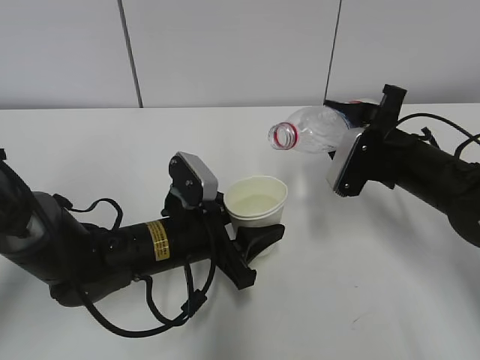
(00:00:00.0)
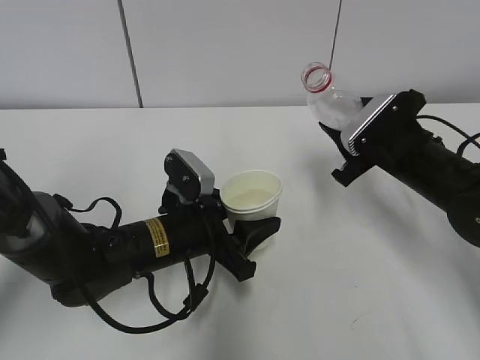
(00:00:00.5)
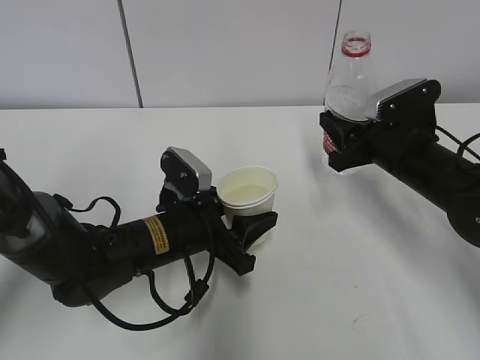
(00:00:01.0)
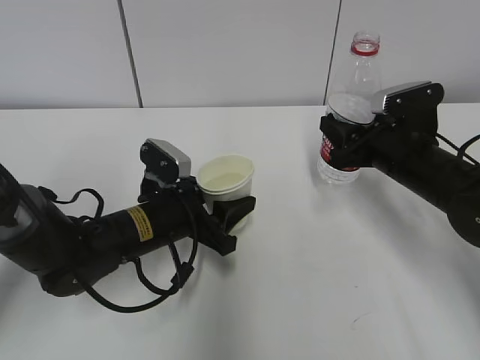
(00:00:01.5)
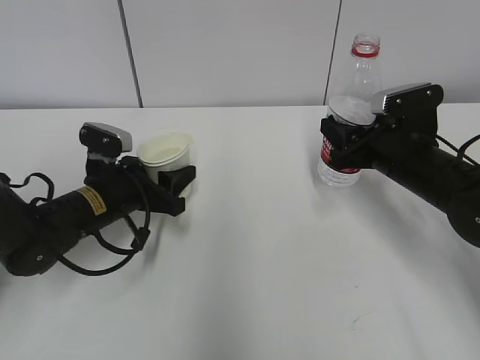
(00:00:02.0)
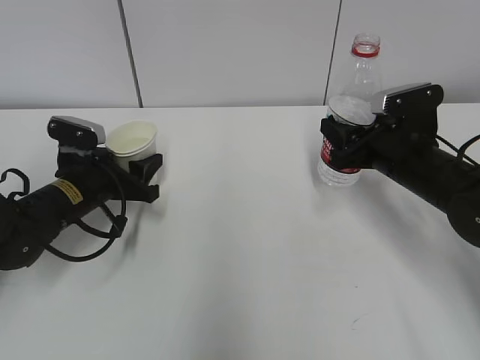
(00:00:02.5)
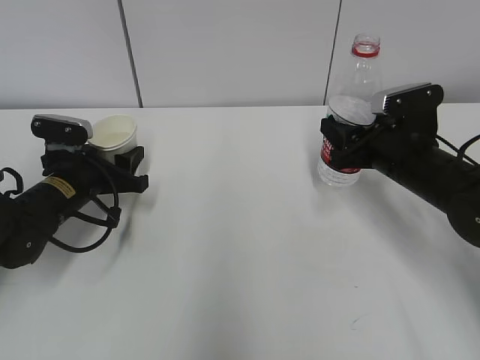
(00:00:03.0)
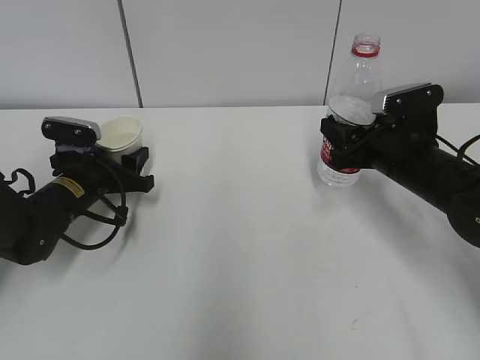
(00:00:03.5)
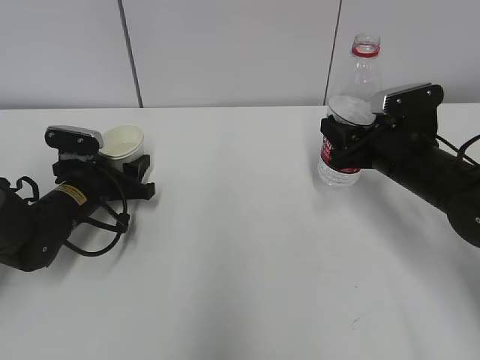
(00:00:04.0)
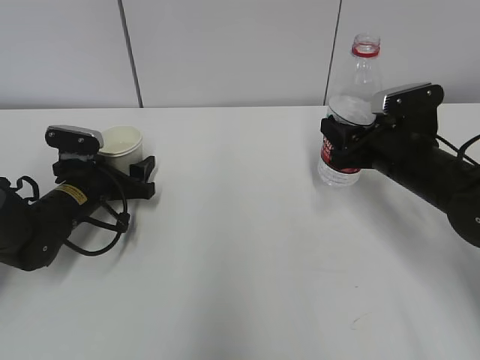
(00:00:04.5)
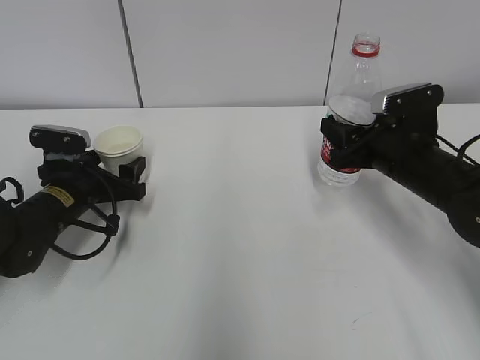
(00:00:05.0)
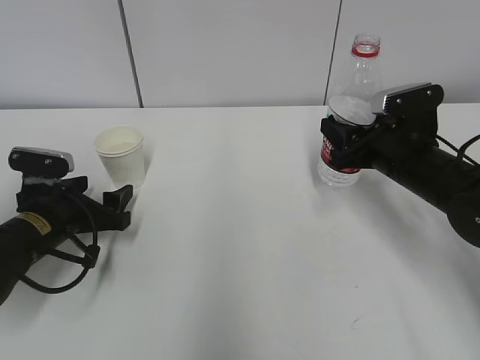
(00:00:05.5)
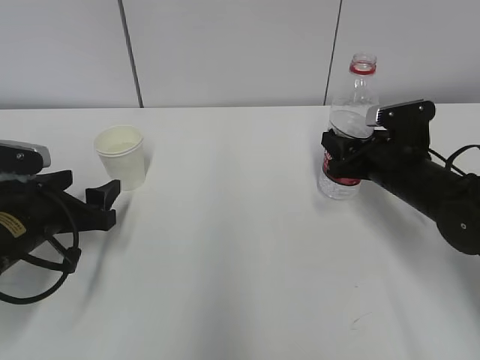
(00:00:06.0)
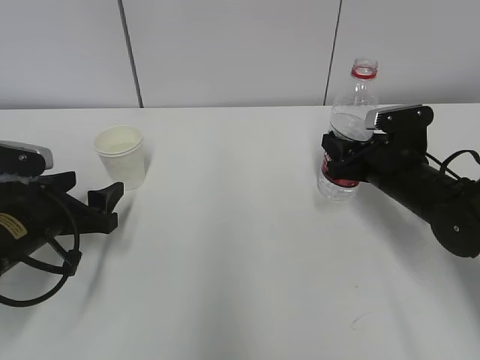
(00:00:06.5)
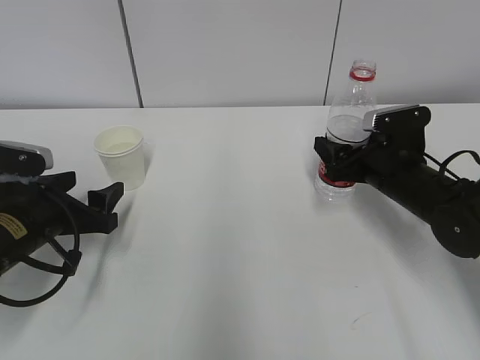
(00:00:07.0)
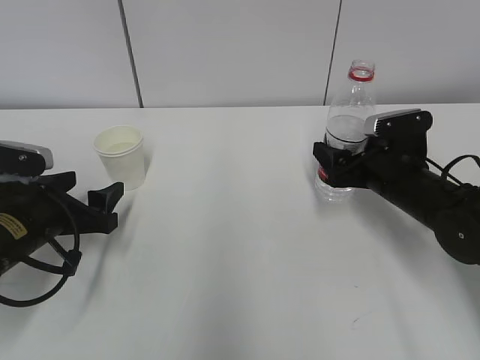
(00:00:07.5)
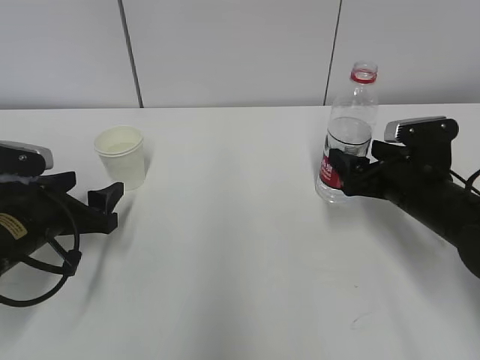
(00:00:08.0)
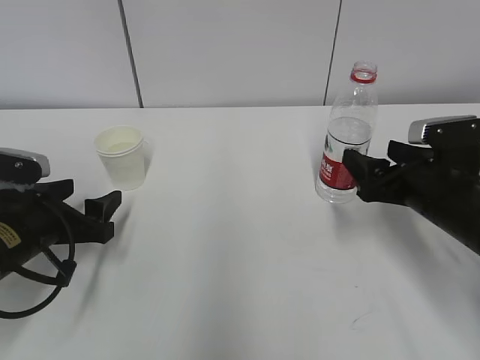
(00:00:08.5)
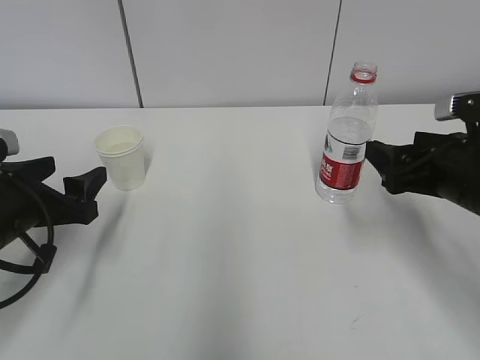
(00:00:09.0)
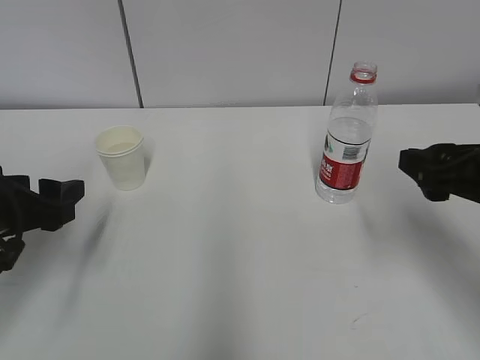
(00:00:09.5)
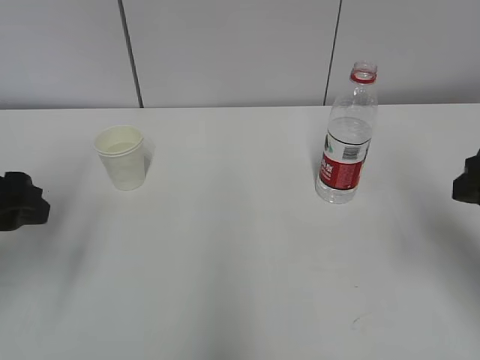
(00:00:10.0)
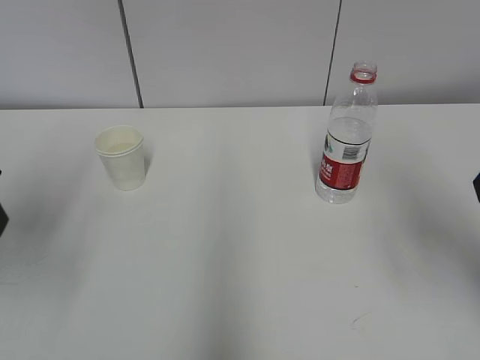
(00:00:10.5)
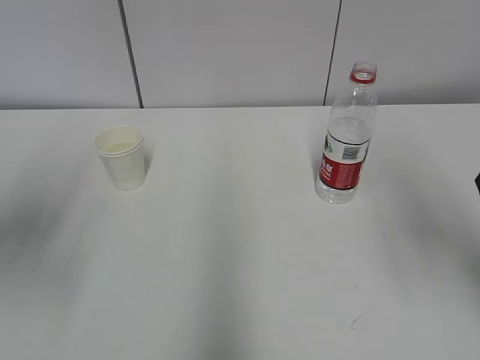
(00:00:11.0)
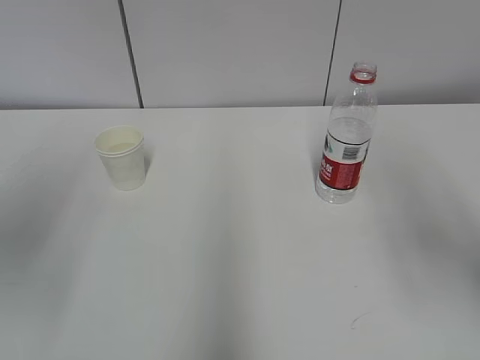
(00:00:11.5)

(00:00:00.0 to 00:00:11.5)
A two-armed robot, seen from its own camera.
00:00:00.0 - 00:00:02.0: The left gripper heads to the left and forward, covering some 10 cm.
00:00:02.0 - 00:00:04.0: The left gripper ends up roughly 5 cm from where it was.
00:00:04.0 - 00:00:06.0: The left gripper is displaced backward by about 10 cm, and opens up.
00:00:06.0 - 00:00:07.5: The right gripper opens its fingers.
00:00:07.5 - 00:00:09.5: The left gripper goes roughly 5 cm upward. Meanwhile the right gripper heads backward and upward, covering approximately 15 cm.
00:00:09.5 - 00:00:11.5: The left gripper travels upward by approximately 15 cm; the right gripper heads upward and backward, covering approximately 15 cm.
